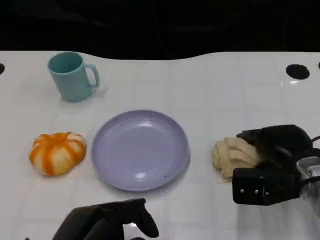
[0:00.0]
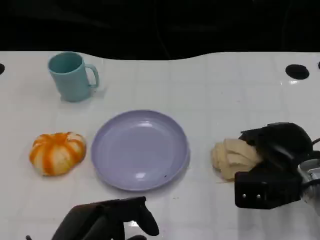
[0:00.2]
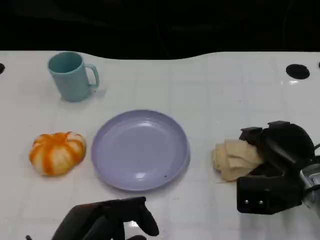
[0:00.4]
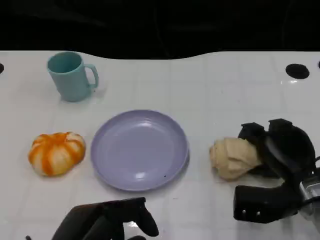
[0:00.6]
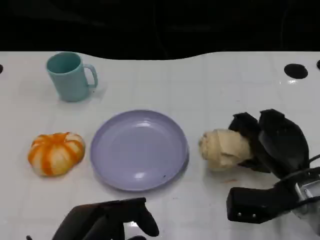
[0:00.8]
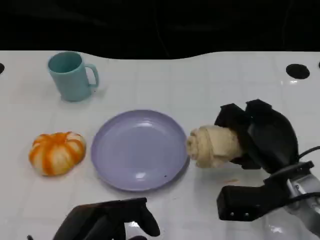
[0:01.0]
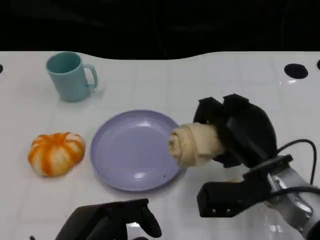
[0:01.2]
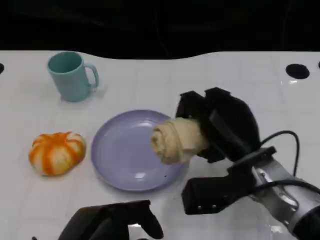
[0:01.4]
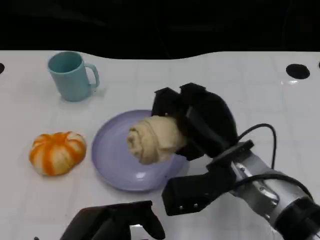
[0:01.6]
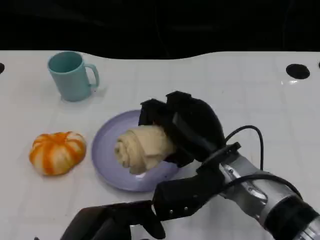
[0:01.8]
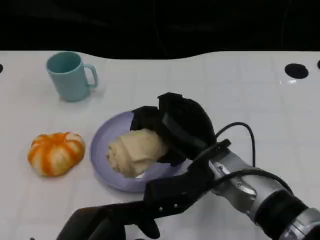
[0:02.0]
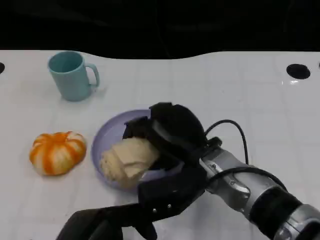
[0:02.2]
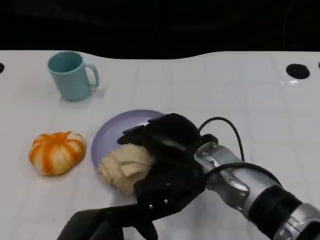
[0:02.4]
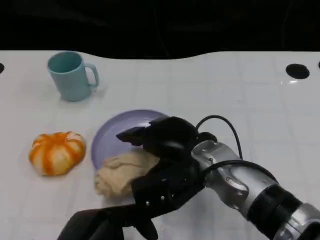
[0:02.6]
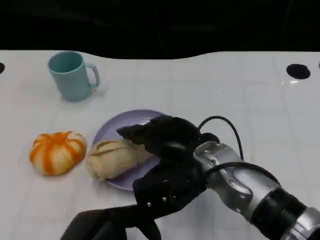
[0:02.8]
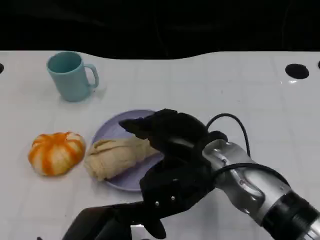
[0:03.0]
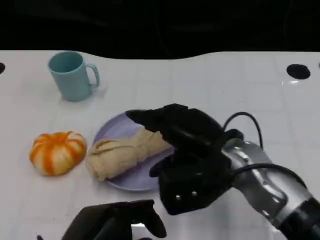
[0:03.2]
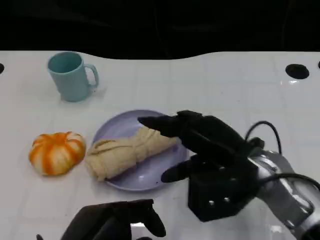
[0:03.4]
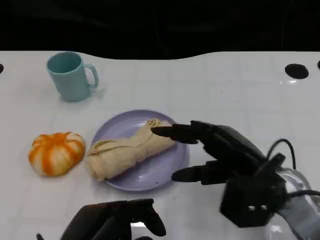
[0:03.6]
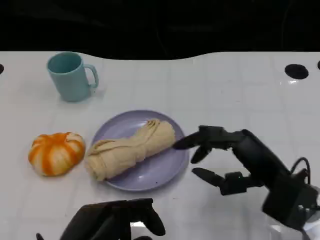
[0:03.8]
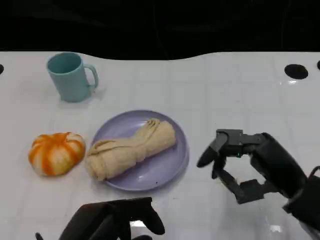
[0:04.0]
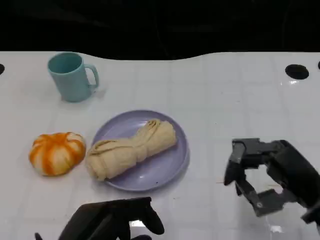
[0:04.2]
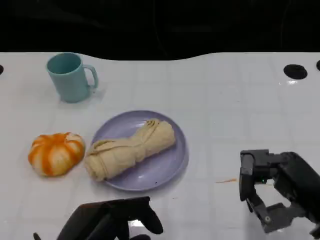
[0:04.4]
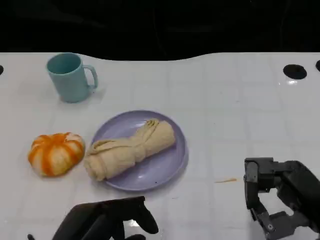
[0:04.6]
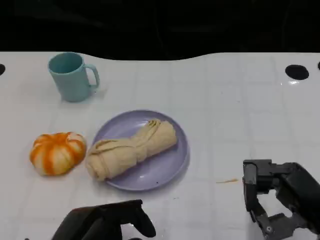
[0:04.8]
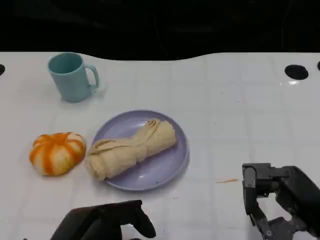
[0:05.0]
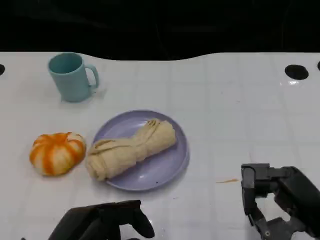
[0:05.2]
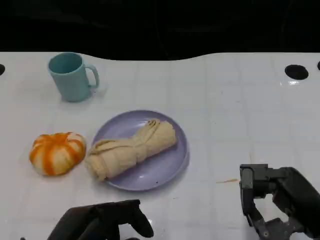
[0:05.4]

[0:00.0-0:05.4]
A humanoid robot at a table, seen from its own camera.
Task of the whole recording: Grasp the towel on the left side of the plate with the left hand and place it into the plate.
0:00.0 to 0:01.4: The right hand shifts roughly 10 cm to the left.
0:01.4 to 0:02.8: The right hand shifts roughly 5 cm to the left.
0:02.8 to 0:04.0: The right hand travels to the right by approximately 15 cm.
0:04.0 to 0:05.4: The right hand moves some 5 cm.
